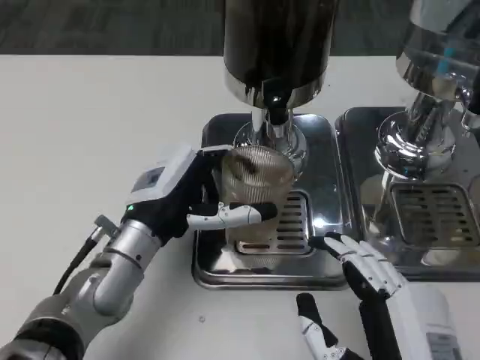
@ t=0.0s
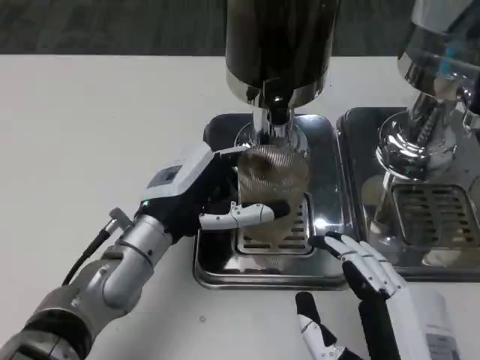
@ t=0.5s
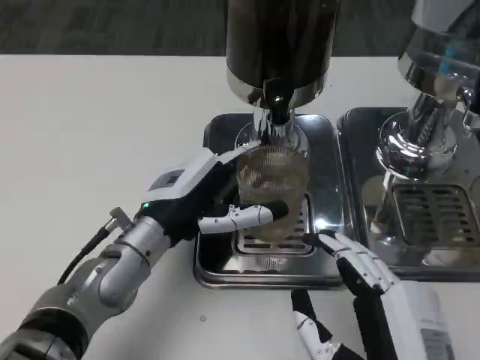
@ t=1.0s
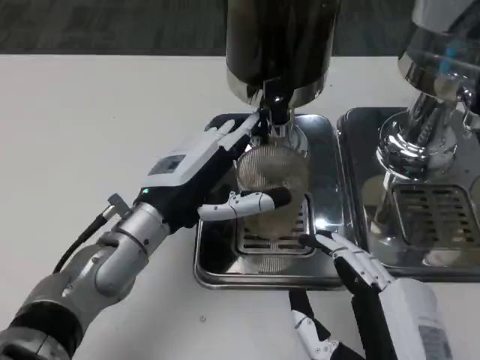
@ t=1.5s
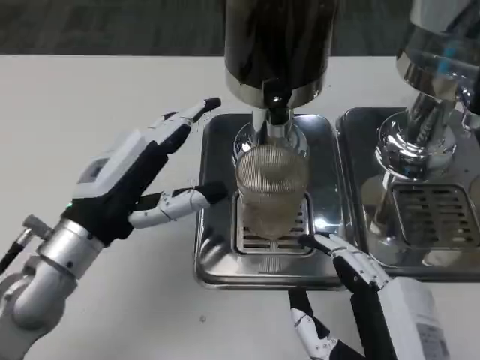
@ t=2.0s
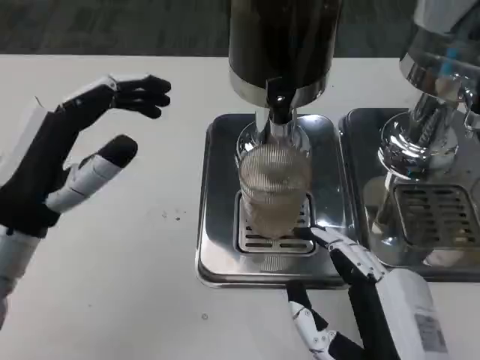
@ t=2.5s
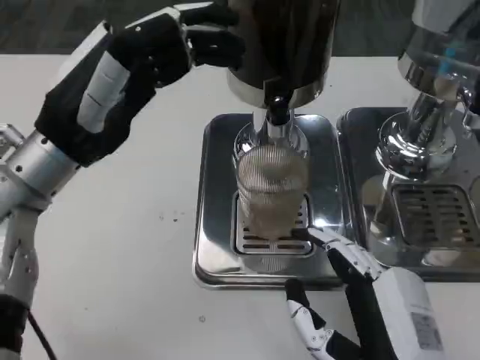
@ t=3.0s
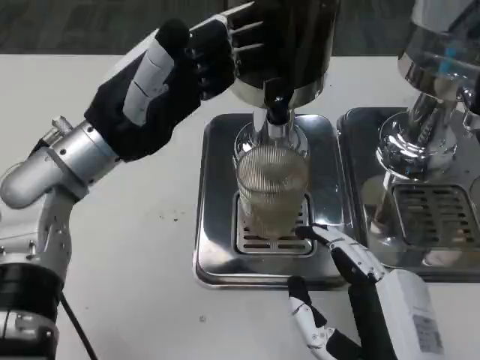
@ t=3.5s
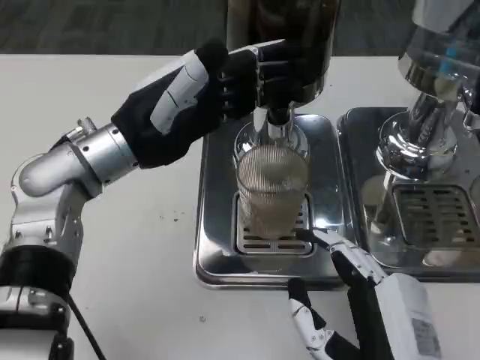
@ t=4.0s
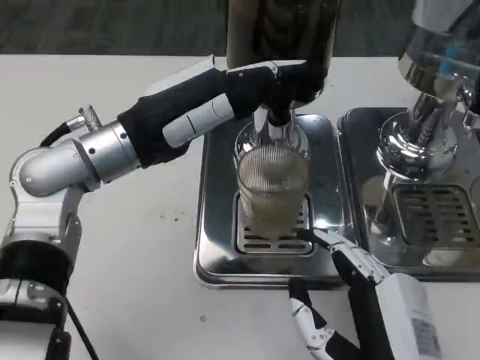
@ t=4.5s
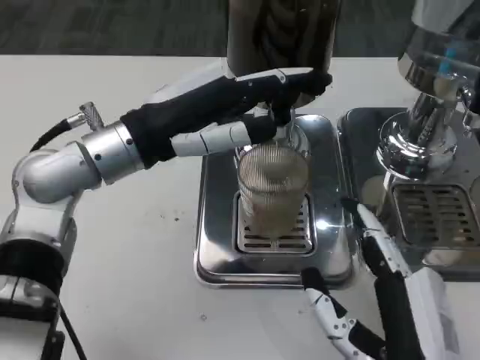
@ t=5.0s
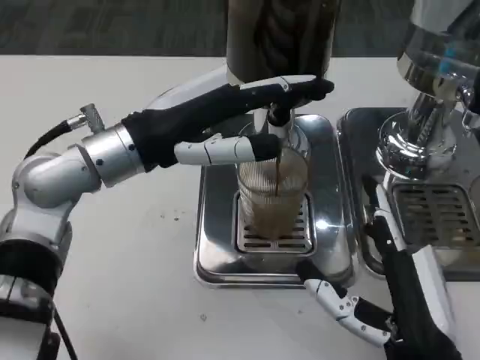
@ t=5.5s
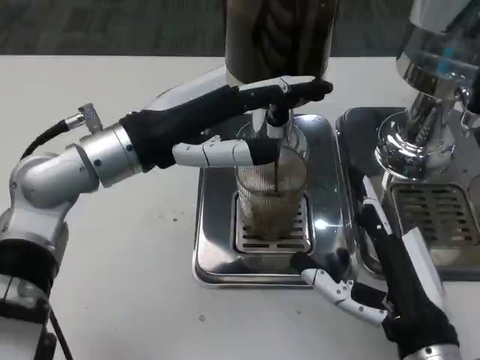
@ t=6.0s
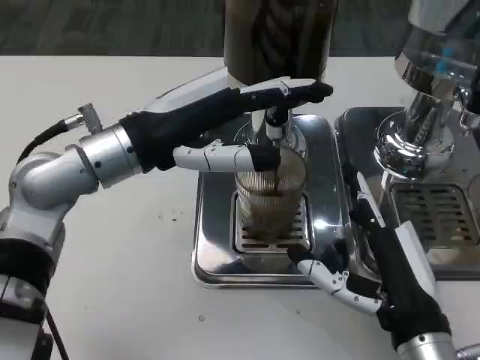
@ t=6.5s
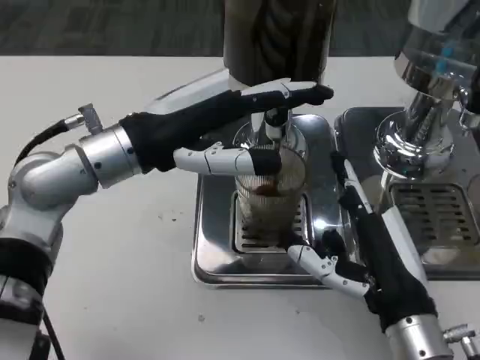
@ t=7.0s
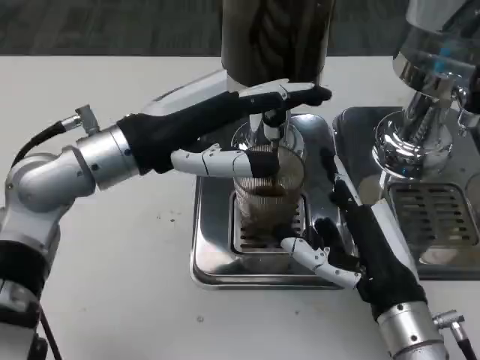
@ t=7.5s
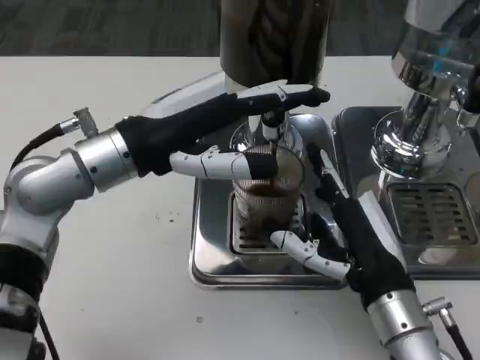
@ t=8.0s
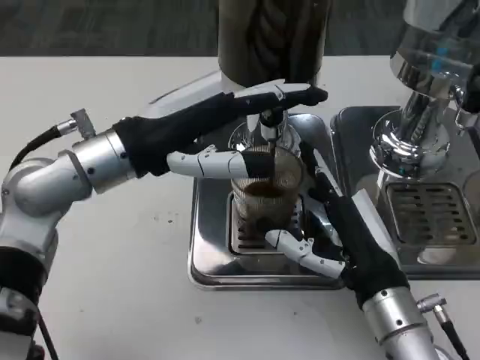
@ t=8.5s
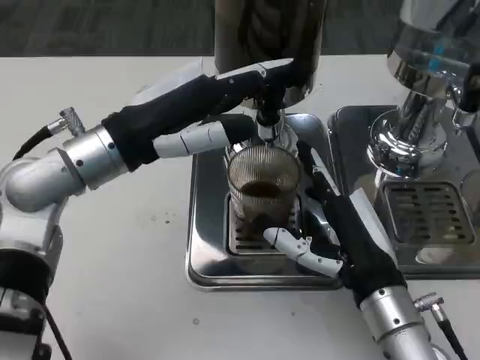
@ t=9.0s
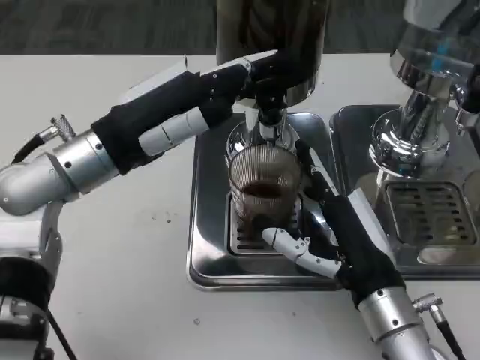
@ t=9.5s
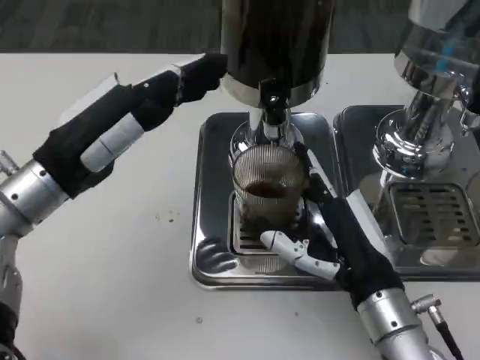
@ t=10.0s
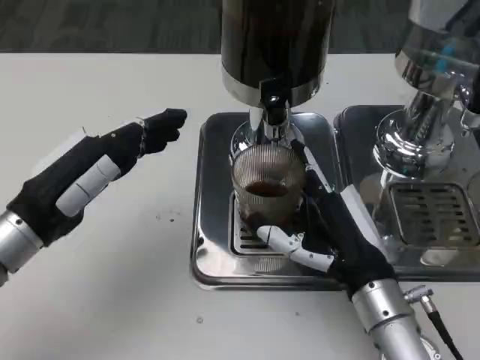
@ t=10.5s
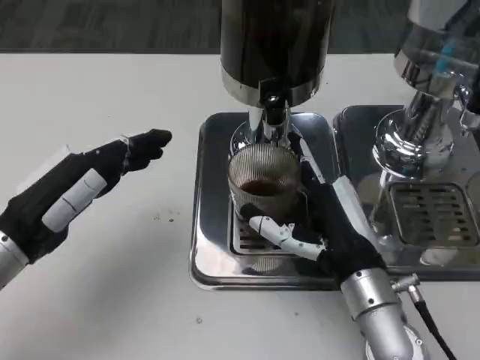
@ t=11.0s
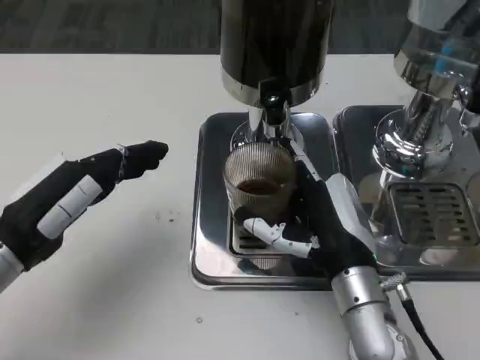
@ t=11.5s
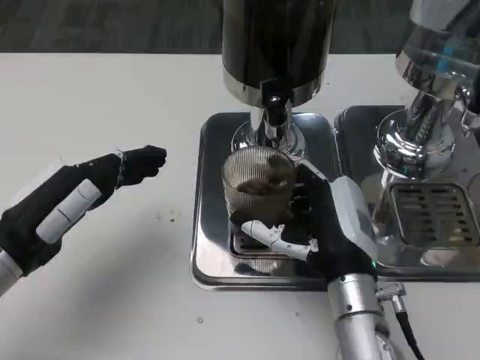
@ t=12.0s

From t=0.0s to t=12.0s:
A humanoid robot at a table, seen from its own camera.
Task of the whole recording: Grasp the cup under the faucet to collect the drink, then remove the cup.
From t=0.0s to t=2.0s: The left hand goes some 5 cm to the left.
From t=2.0s to t=4.0s: The left hand heads forward and upward, covering approximately 10 cm.
From t=4.0s to t=6.0s: The right hand shifts approximately 5 cm forward.
From t=6.0s to t=8.0s: The right hand shifts about 5 cm forward.
From t=8.0s to t=10.0s: The left hand shifts some 5 cm to the left.
From t=10.0s to t=12.0s: The left hand moves backward, about 5 cm.

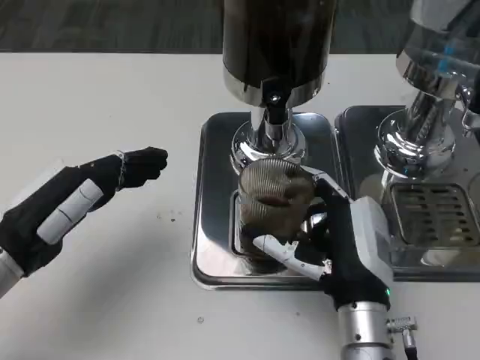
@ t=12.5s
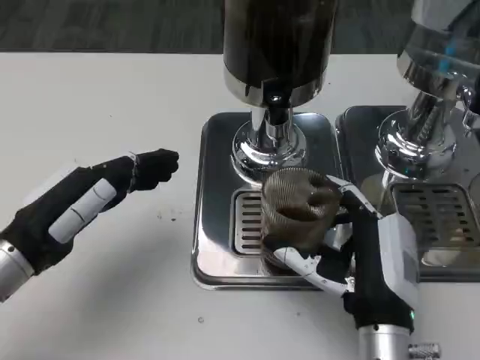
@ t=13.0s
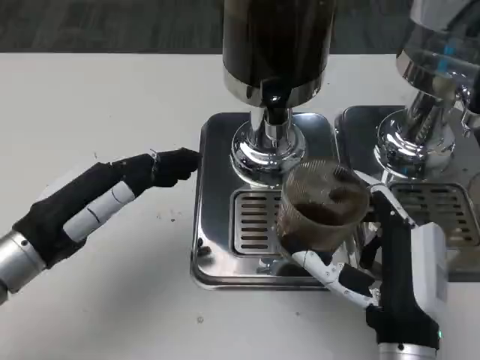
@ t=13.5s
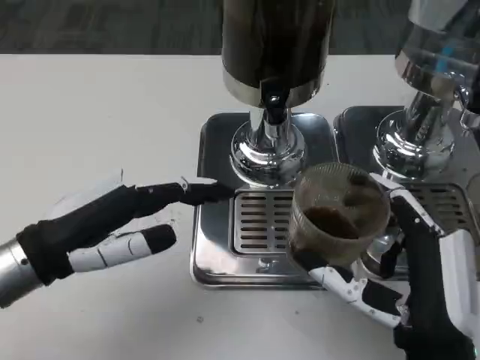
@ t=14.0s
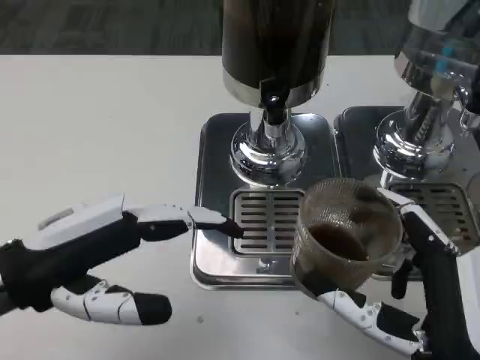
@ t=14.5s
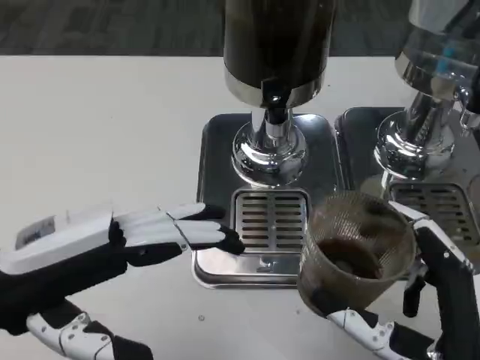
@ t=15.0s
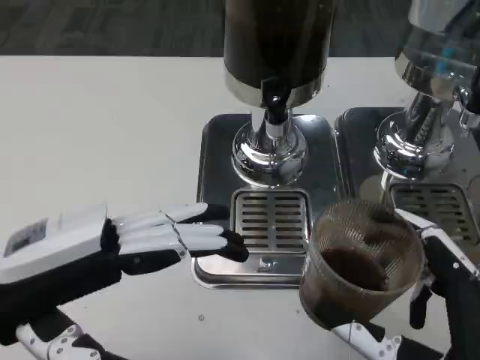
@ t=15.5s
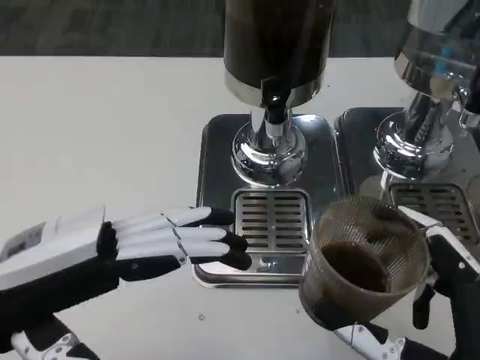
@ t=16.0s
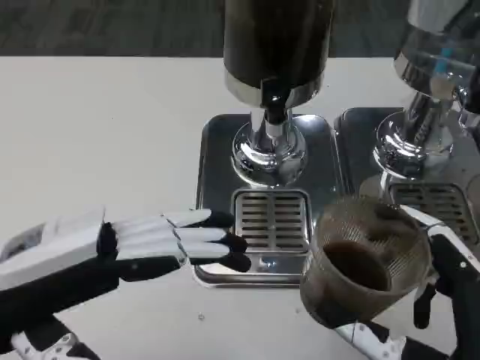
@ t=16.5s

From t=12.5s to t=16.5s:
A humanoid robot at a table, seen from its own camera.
Task of the whole recording: Grasp the cup under the faucet to collect the drink, then remove the cup.
From t=12.5s to t=14.5s: The right hand heads backward, covering approximately 10 cm. Meanwhile the left hand shifts some 5 cm upward.

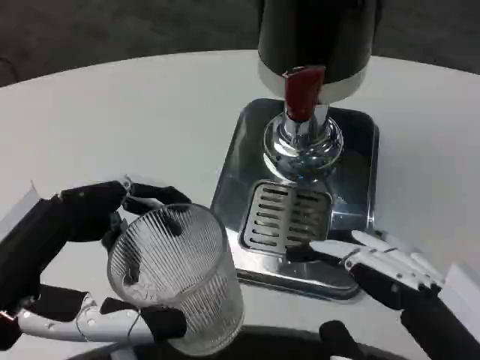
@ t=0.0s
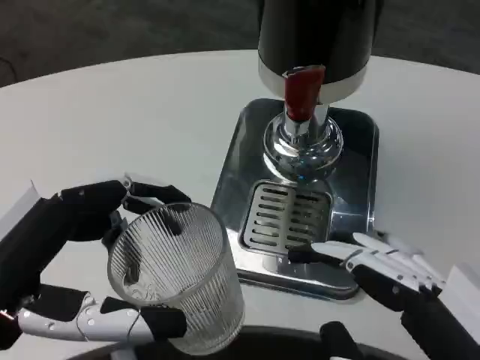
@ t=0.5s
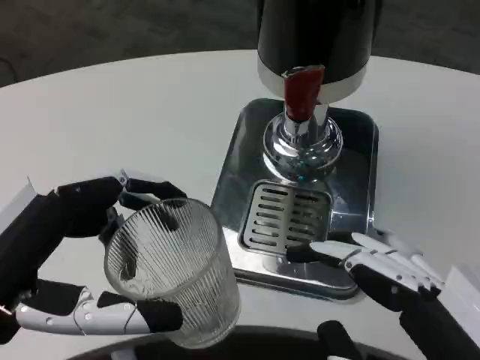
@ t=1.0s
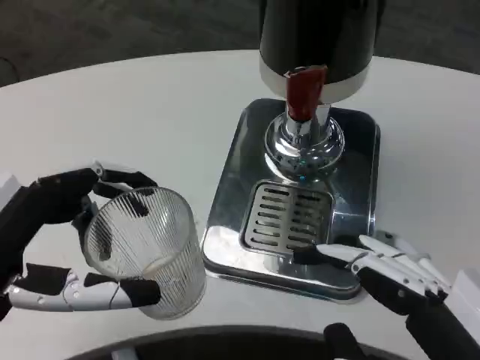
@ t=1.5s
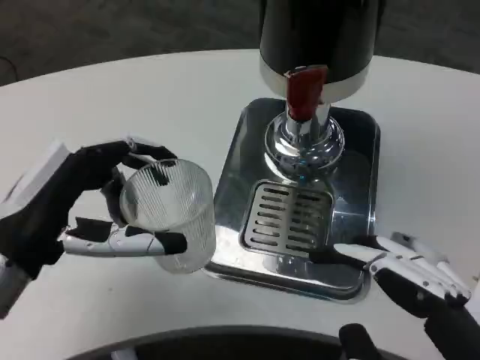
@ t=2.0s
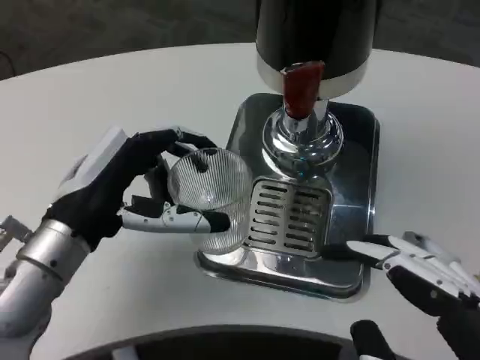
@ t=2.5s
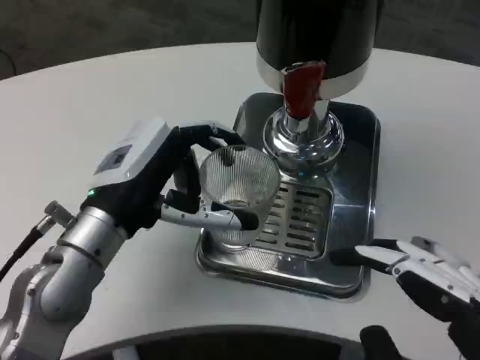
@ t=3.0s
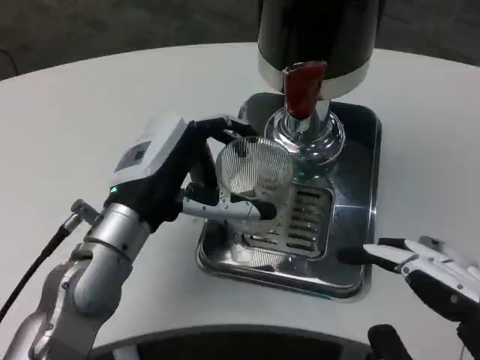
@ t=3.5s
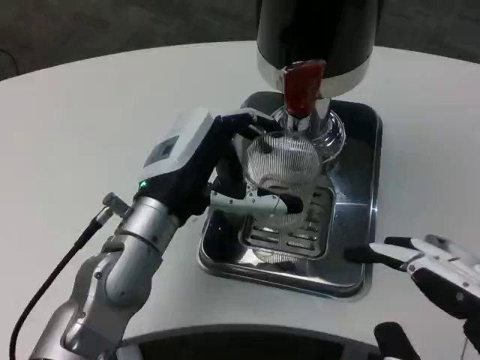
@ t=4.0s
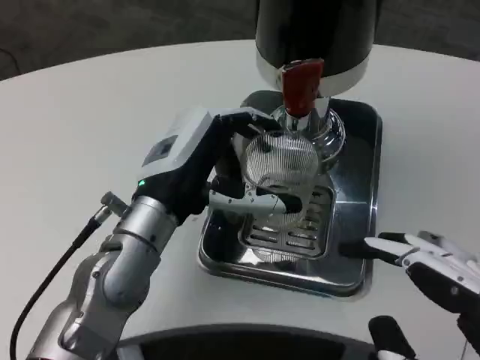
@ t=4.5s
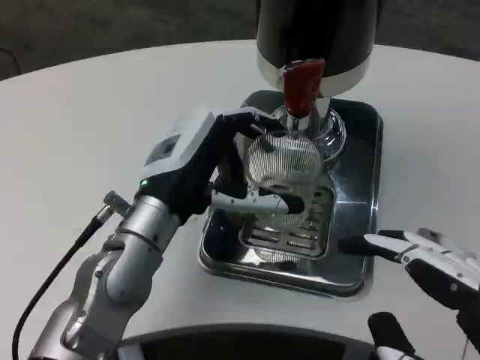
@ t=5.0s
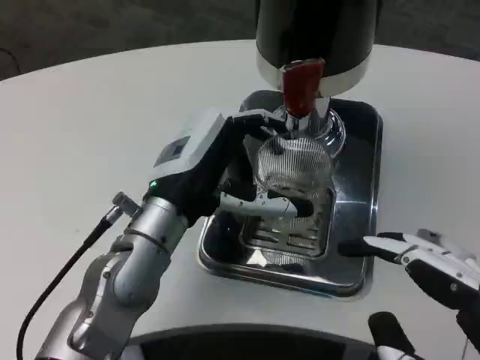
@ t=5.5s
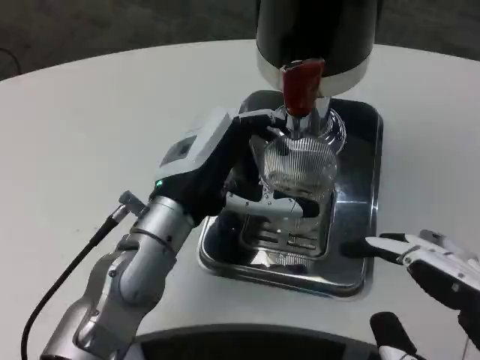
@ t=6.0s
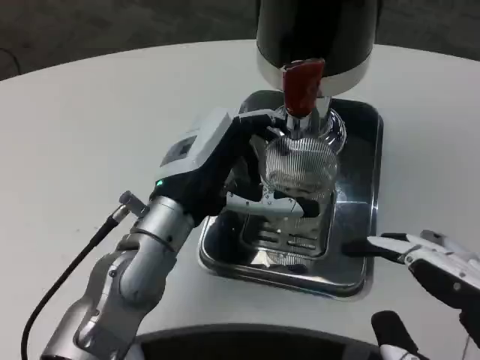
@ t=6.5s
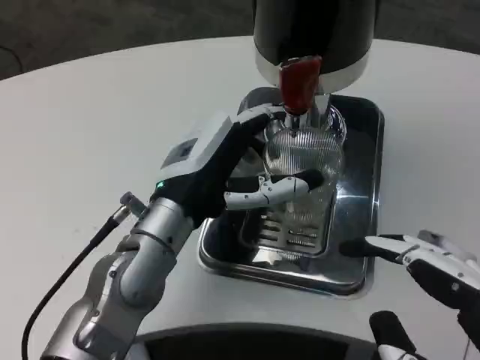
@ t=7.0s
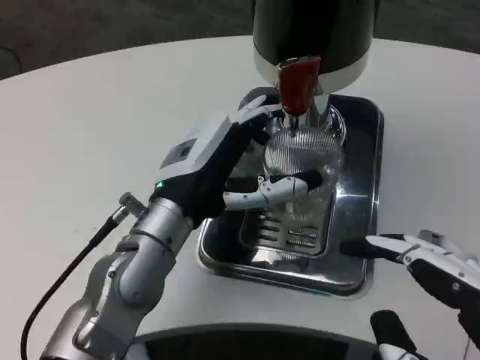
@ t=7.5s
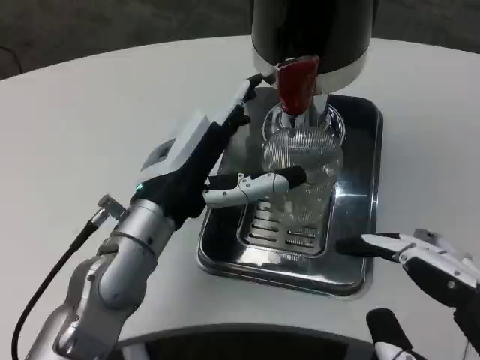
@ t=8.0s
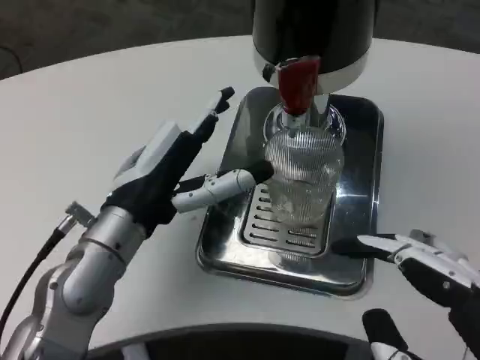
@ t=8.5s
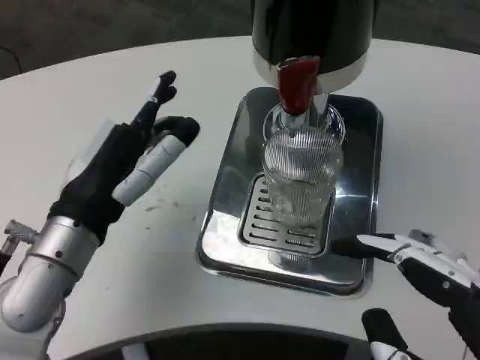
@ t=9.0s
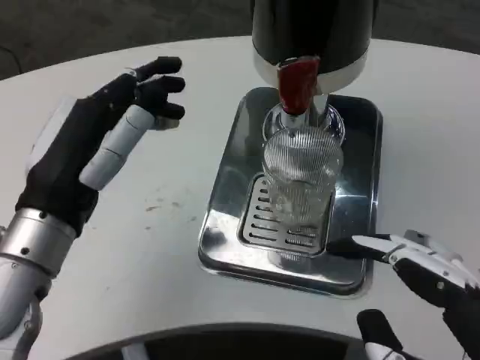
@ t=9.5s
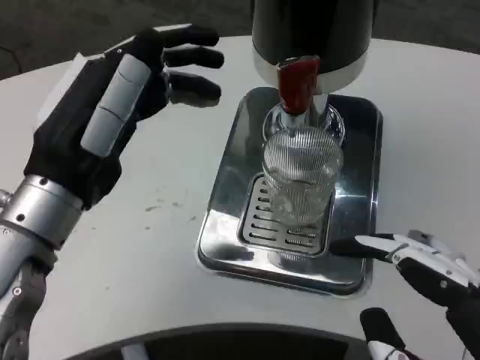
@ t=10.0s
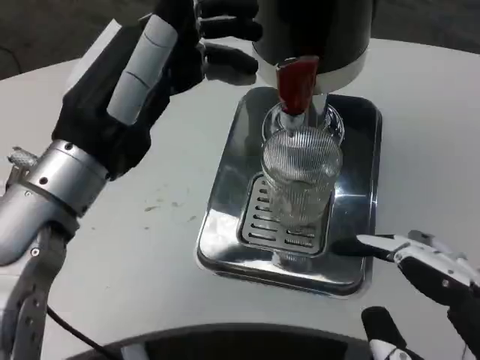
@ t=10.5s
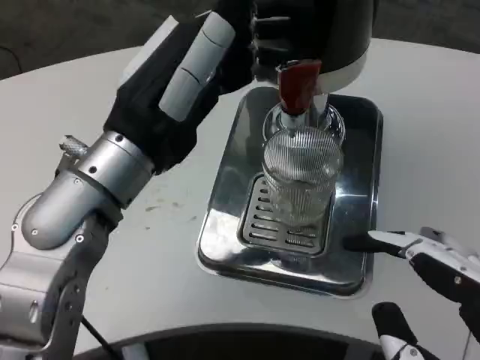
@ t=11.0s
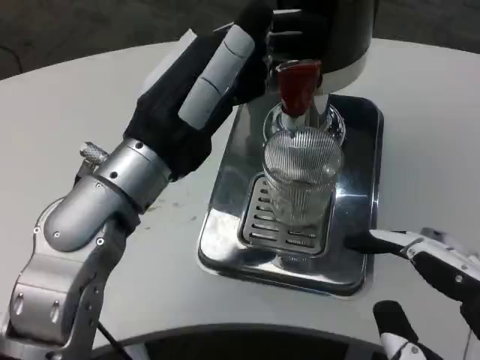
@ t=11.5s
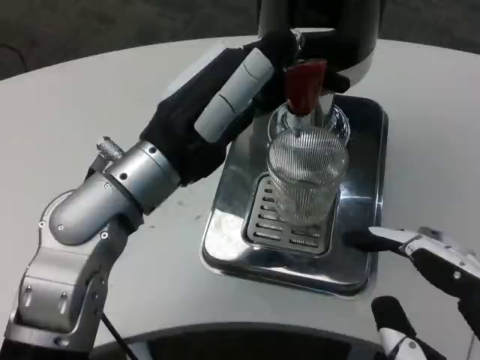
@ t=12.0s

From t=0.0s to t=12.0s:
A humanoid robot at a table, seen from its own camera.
Task of the whole recording: Grasp the cup under the faucet to collect the drink, then remove the cup.
From t=0.0s to t=2.0s: The left hand travels forward by roughly 10 cm.
From t=2.0s to t=4.0s: The left hand moves to the right and forward, approximately 15 cm.
From t=4.0s to t=6.0s: Both hands stay put.
From t=8.0s to t=10.0s: The left hand shifts about 10 cm upward, backward and to the left.
From t=10.0s to t=12.0s: The left hand travels to the right by about 5 cm.
